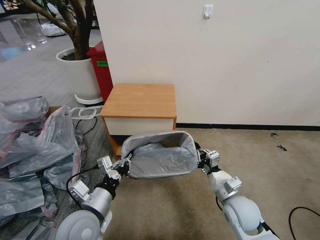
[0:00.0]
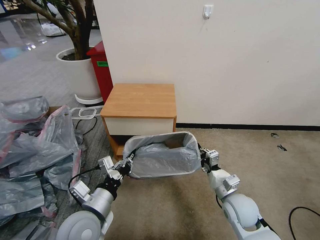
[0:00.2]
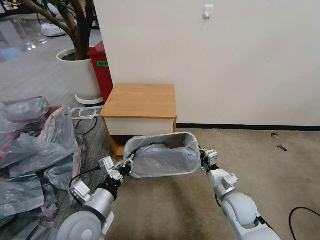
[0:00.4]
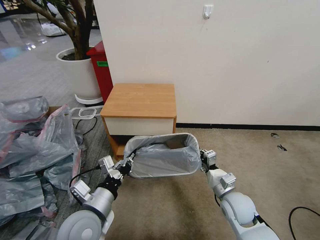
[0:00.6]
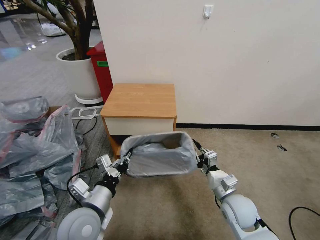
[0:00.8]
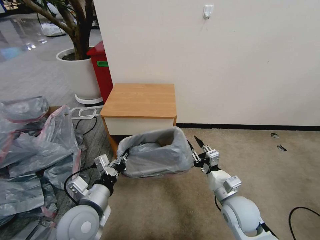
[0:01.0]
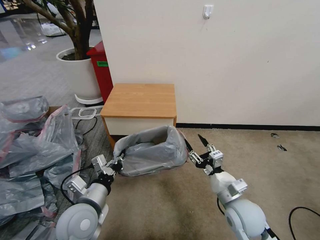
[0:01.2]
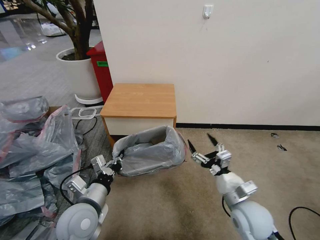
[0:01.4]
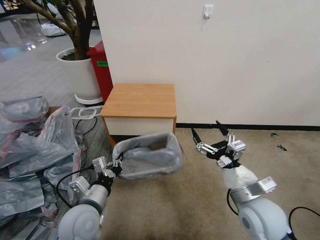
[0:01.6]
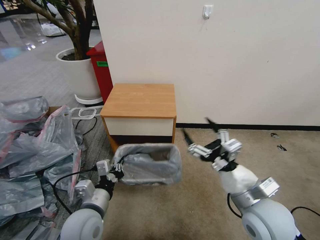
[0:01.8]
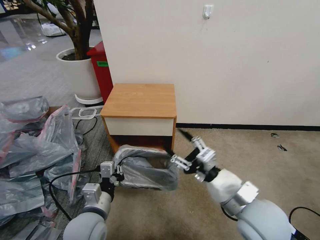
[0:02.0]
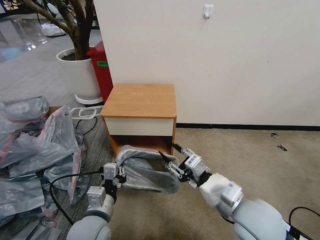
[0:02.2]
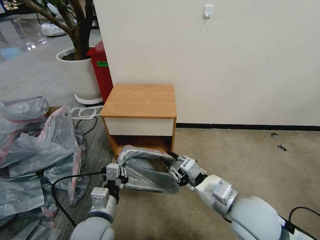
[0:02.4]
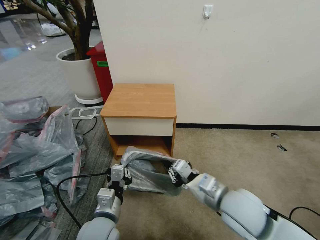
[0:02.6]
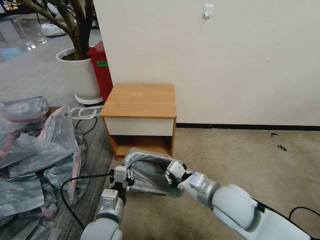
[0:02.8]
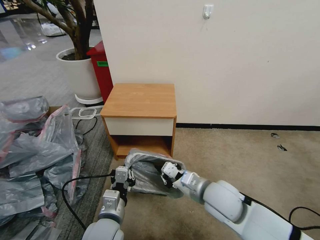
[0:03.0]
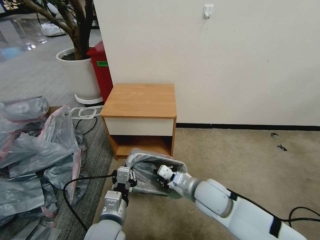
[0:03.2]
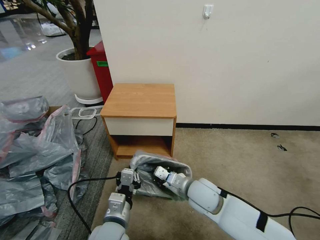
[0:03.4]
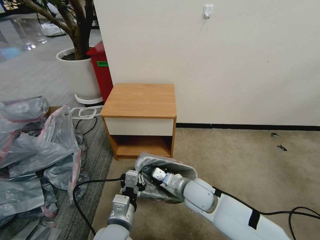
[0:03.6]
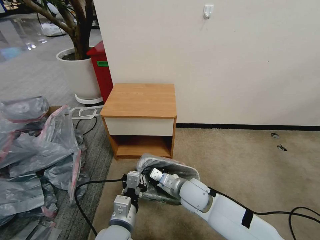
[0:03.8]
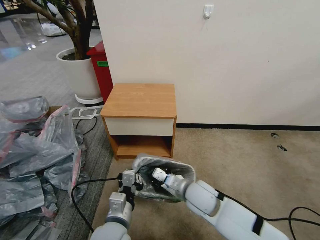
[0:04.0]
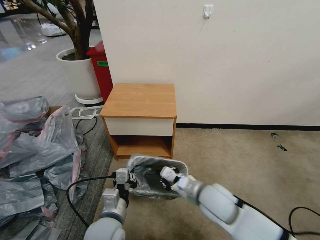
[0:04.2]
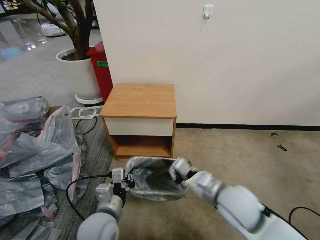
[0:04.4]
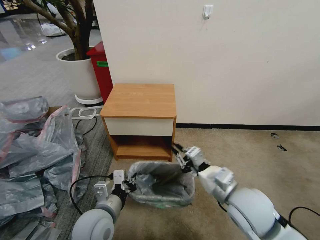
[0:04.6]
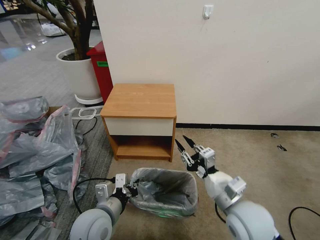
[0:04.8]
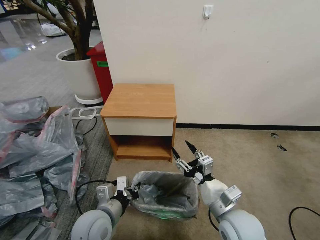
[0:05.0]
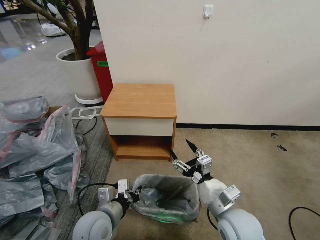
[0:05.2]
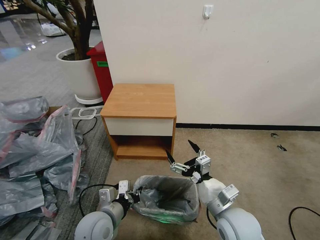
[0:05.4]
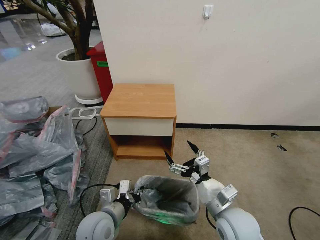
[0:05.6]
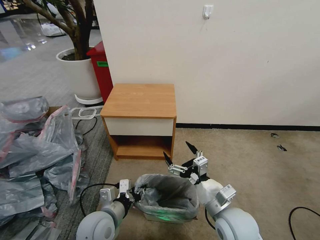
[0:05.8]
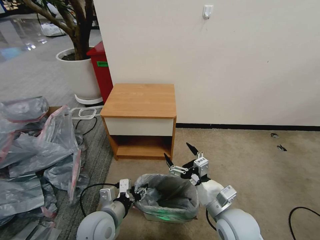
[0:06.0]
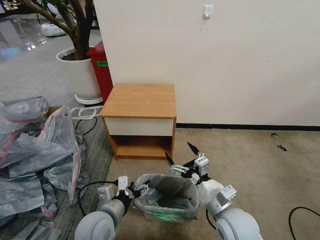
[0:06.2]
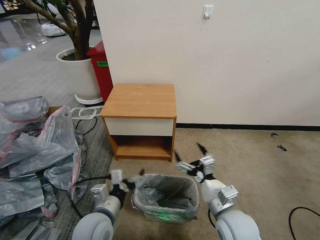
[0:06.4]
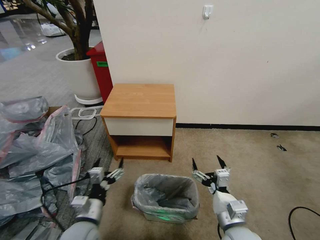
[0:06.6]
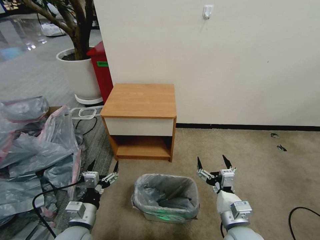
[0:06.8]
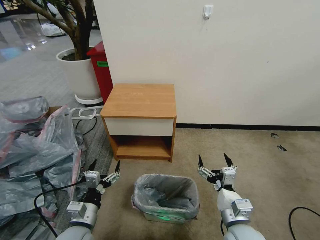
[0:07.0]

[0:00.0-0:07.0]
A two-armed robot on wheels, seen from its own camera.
Task of the whole recording: Pick up the garbage bag from the table and place it over the trash can.
0:00.0 to 0:01.4: The right gripper opens.
0:01.4 to 0:02.8: The left gripper goes roughly 5 cm to the right. The right gripper is displaced to the left and upward by some 10 cm, and closes its fingers.
0:04.2 to 0:05.6: The right gripper shifts roughly 5 cm backward, and opens.
0:05.6 to 0:07.0: The left gripper heads to the left, covering roughly 5 cm, and opens its fingers. The right gripper changes place by approximately 5 cm.
